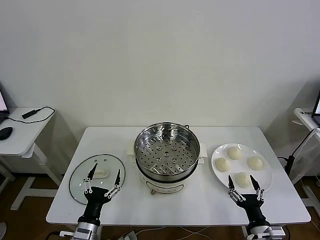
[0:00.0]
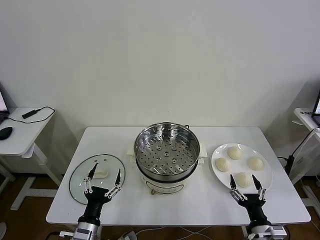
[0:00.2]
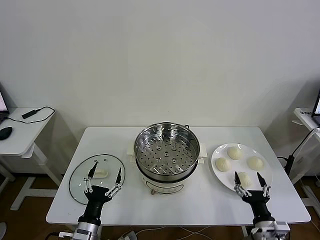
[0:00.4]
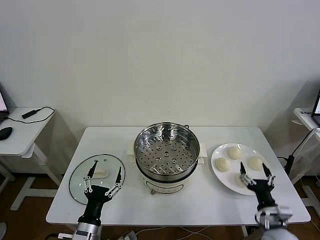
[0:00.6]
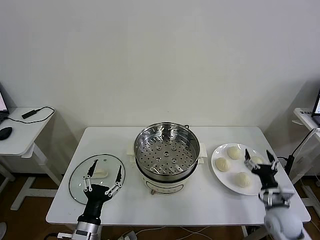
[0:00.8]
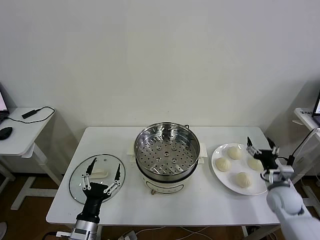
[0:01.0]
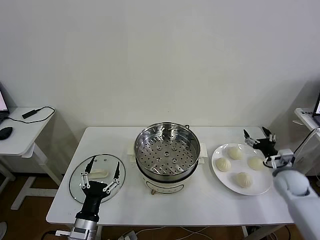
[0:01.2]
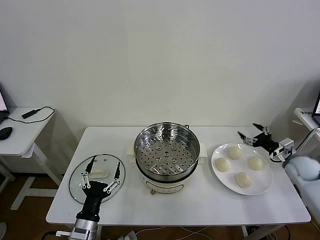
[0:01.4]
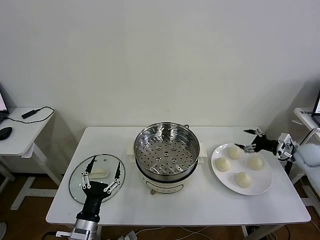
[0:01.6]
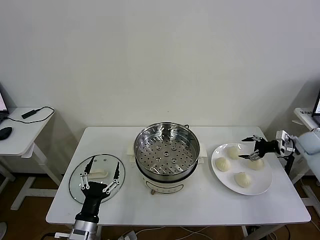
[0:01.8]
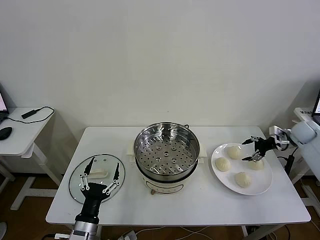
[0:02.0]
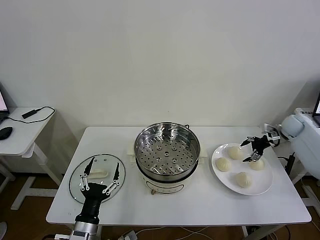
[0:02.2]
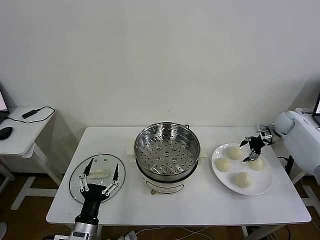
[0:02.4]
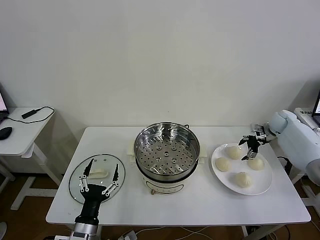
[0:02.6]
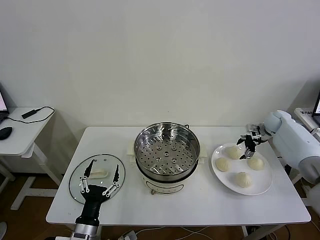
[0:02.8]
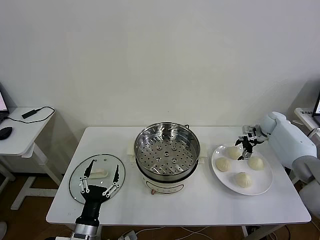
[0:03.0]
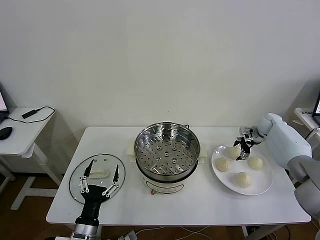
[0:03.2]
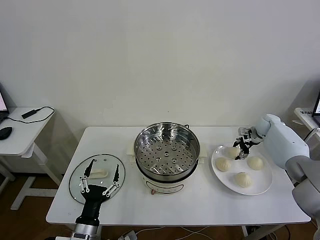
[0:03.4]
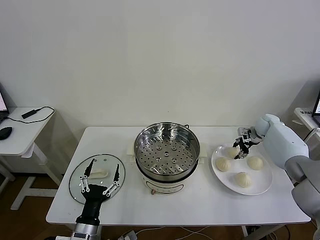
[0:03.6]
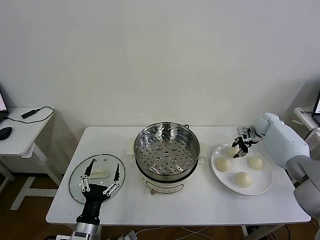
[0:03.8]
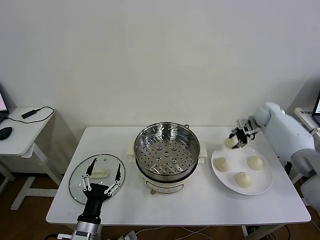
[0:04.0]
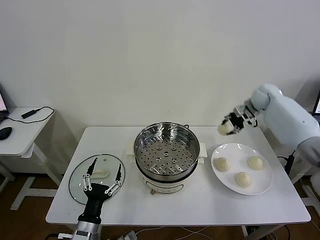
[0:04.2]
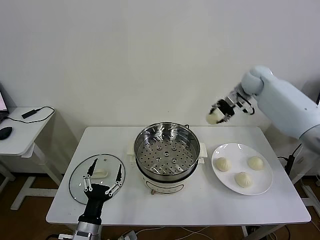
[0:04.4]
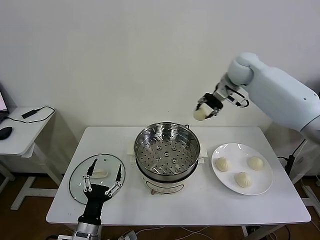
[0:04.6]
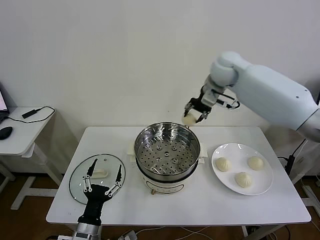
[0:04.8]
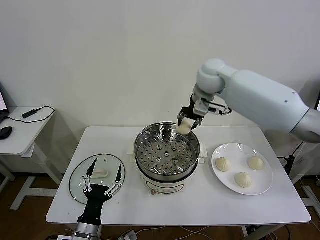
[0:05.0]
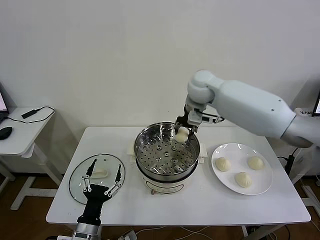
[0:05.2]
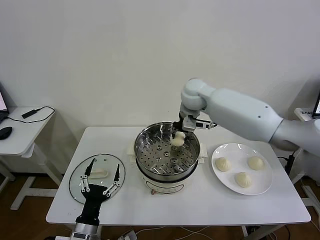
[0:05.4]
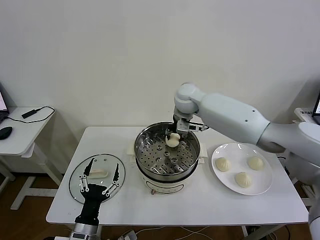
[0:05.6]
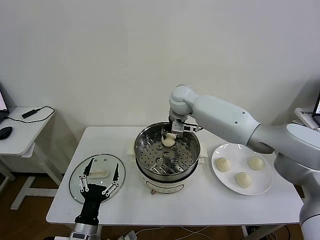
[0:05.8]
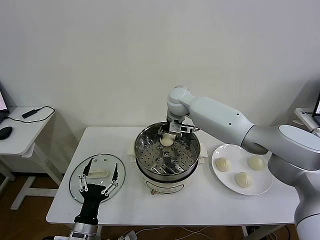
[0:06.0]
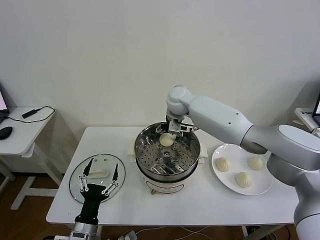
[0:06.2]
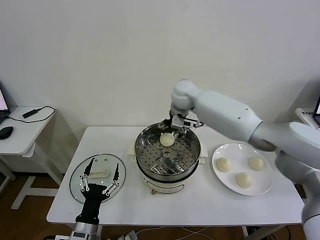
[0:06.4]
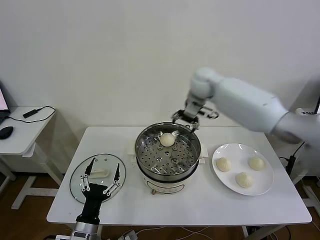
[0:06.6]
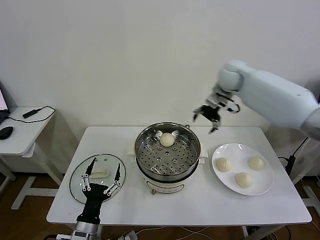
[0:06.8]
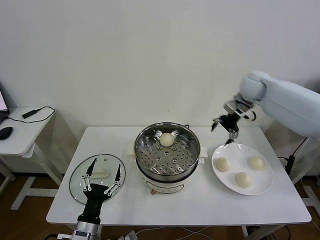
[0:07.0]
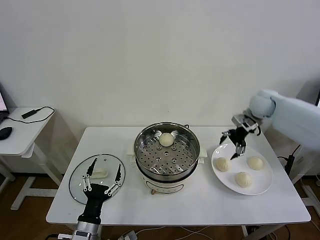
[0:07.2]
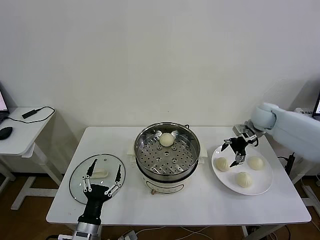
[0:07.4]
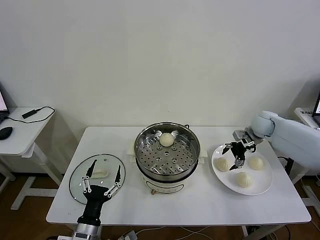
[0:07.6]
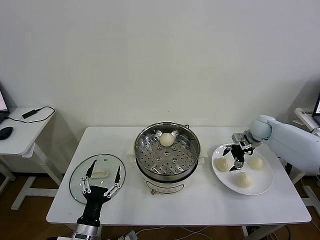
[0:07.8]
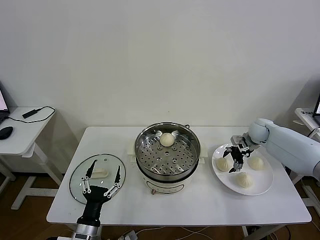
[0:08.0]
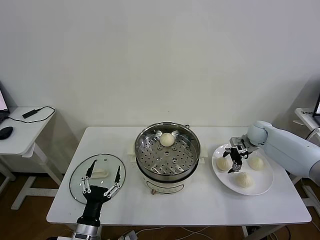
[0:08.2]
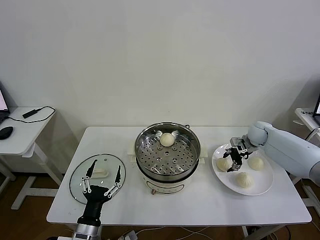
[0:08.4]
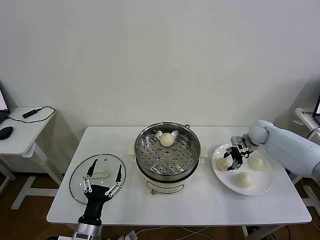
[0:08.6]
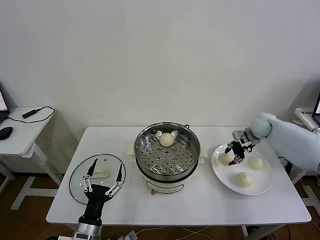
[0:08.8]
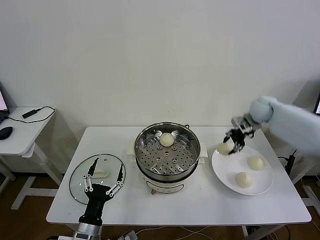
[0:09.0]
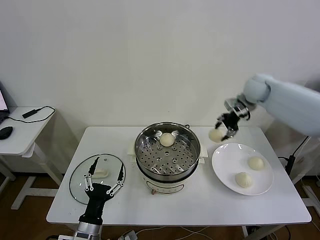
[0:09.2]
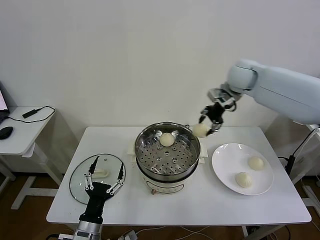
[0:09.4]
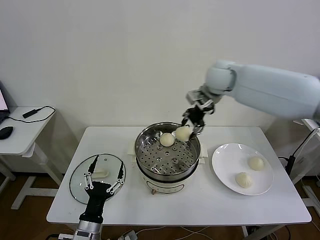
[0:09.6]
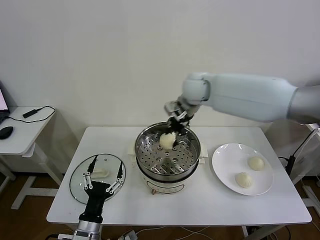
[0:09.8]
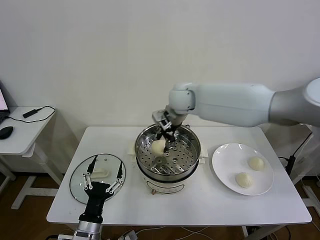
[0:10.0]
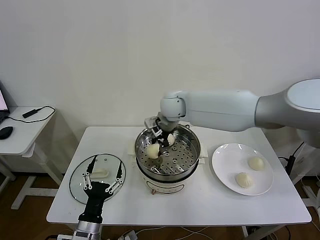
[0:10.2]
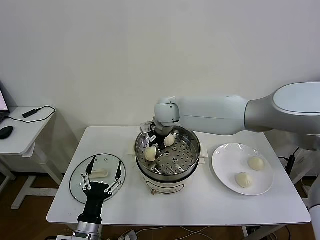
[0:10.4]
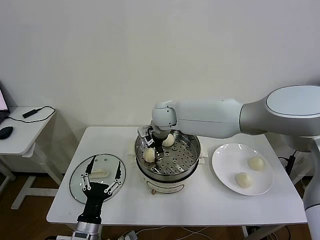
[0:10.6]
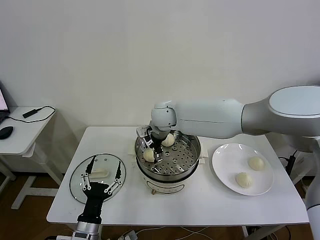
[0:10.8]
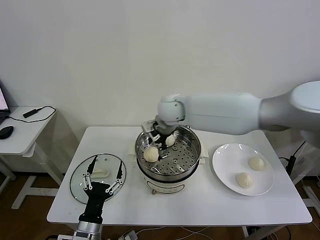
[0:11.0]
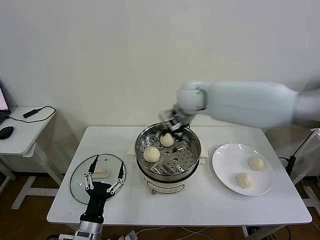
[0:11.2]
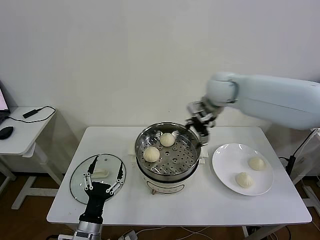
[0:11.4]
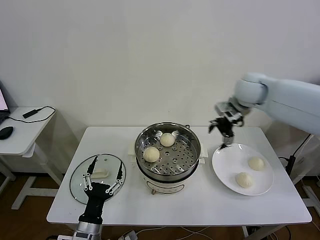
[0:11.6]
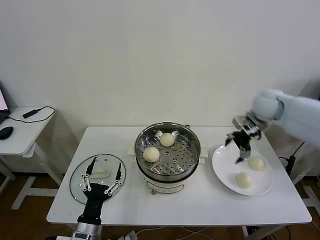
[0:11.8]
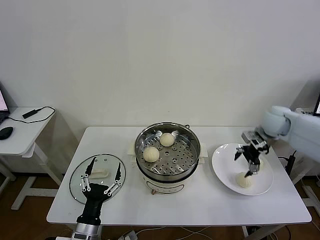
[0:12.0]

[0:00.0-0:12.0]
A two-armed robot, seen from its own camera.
Task of the whole recording: take steamed baozi put them in steamer then cover it.
Step, 0.0 to 3.6 s: Grasp the baozi in the plate with right gripper.
Step, 4.0 to 6.2 s: Place the baozi on the steamer with right gripper.
Step, 6.4 to 8.4 s: Grasp the baozi in the plate with right gripper.
Step, 8.8 to 10.6 s: Place the baozi on the steamer with right gripper.
1.6 to 3.0 s: The right gripper travels forward and to the left by approximately 15 cm.
3.0 to 4.4 s: The right gripper moves upward and to the left, roughly 30 cm, and closes up.
4.4 to 6.0 s: The right gripper travels to the left by about 25 cm, and opens up.
6.0 to 7.6 s: The right gripper heads to the right, covering roughly 35 cm, and opens.
7.6 to 9.0 s: The right gripper travels upward by approximately 10 cm, and closes up.
9.0 to 10.4 s: The right gripper heads to the left, covering about 35 cm.
10.4 to 12.0 s: The right gripper shifts some 35 cm to the right, and opens.

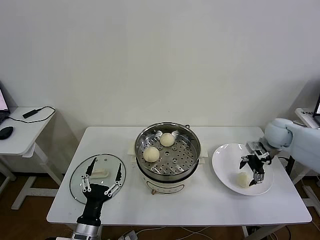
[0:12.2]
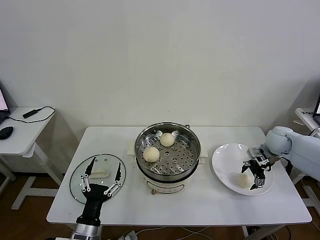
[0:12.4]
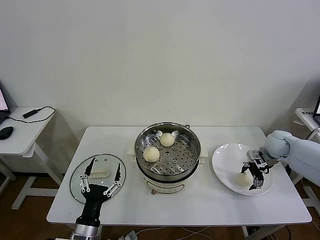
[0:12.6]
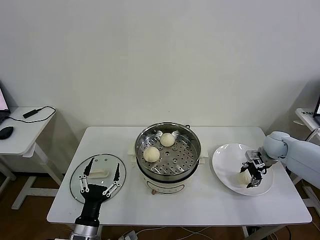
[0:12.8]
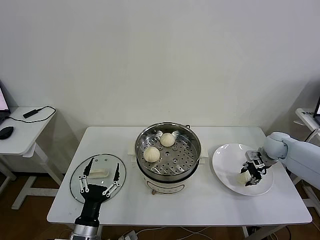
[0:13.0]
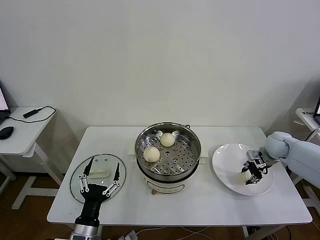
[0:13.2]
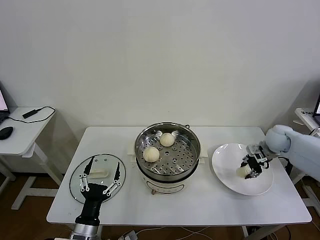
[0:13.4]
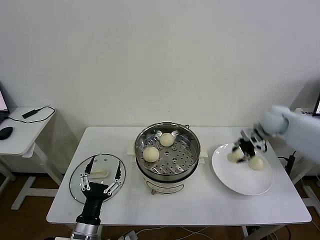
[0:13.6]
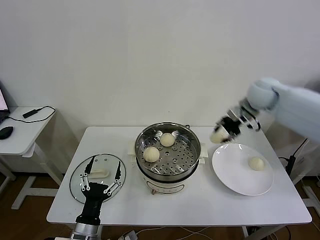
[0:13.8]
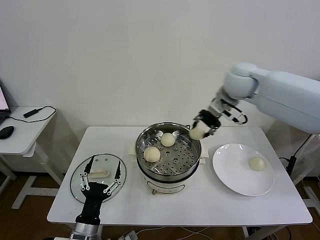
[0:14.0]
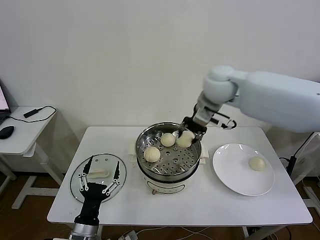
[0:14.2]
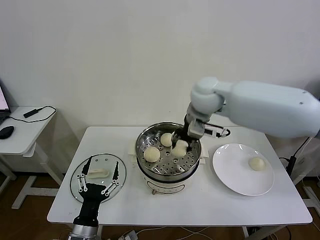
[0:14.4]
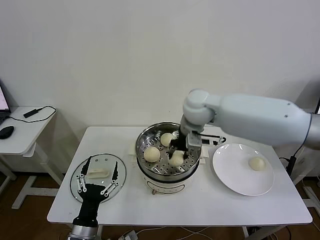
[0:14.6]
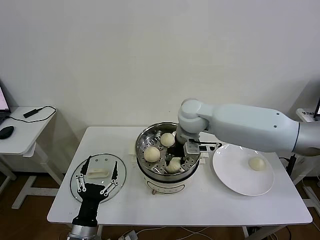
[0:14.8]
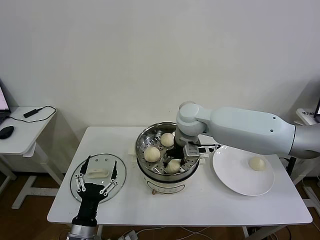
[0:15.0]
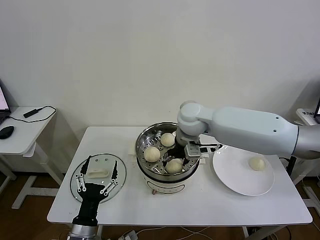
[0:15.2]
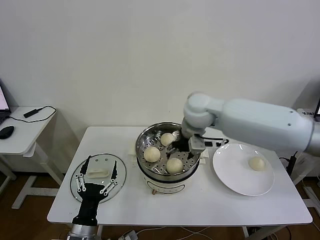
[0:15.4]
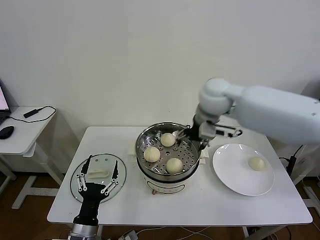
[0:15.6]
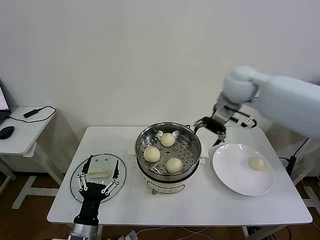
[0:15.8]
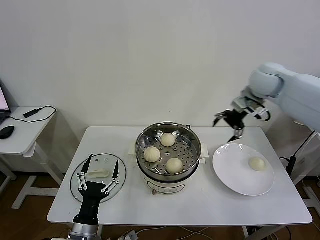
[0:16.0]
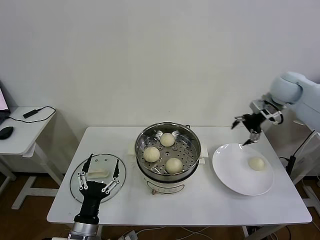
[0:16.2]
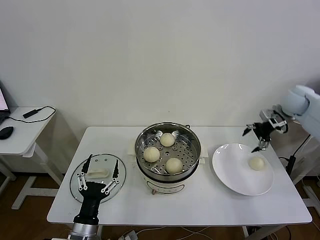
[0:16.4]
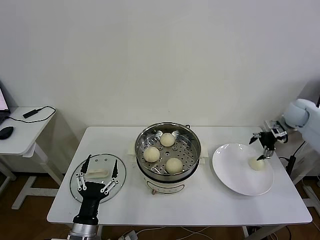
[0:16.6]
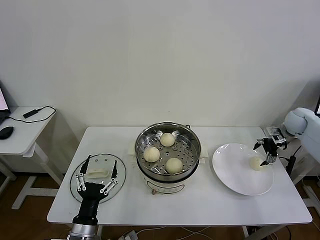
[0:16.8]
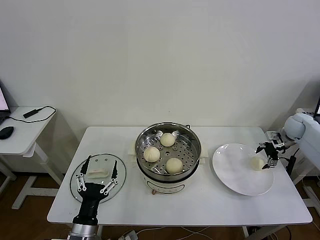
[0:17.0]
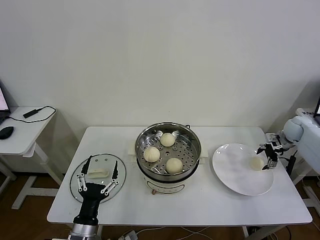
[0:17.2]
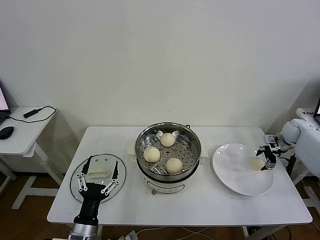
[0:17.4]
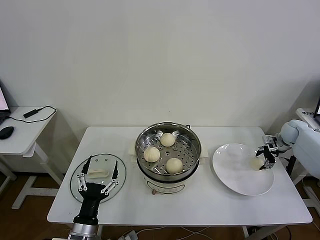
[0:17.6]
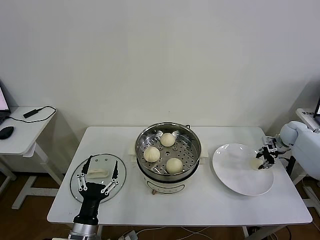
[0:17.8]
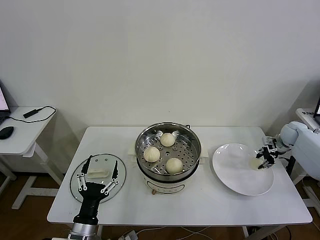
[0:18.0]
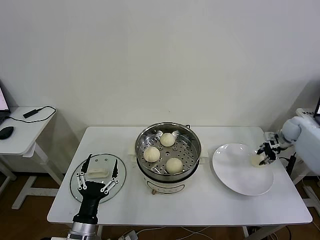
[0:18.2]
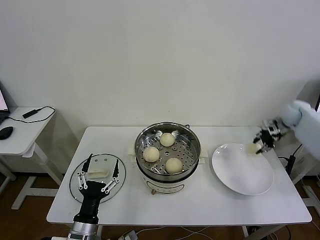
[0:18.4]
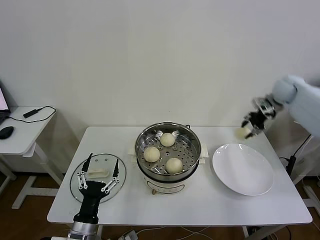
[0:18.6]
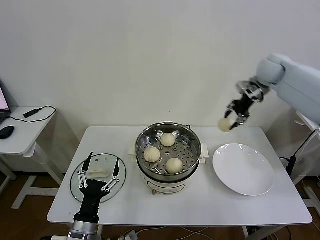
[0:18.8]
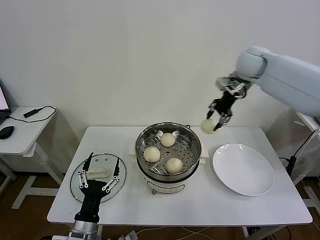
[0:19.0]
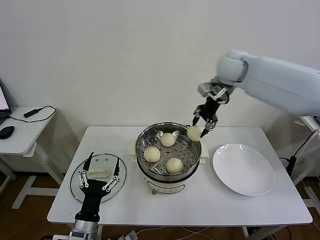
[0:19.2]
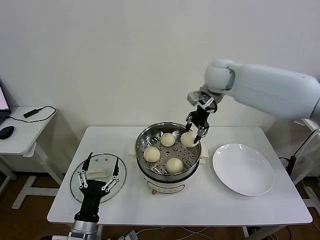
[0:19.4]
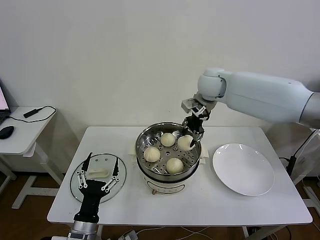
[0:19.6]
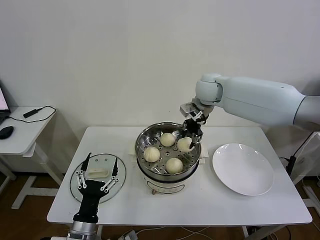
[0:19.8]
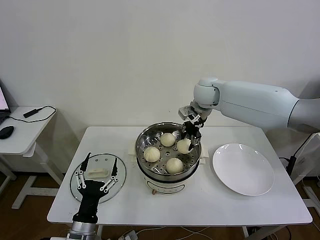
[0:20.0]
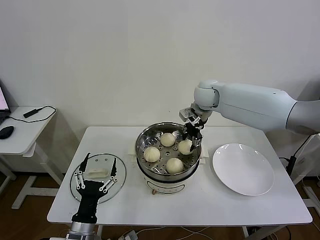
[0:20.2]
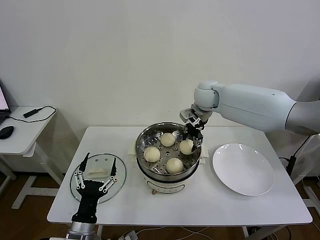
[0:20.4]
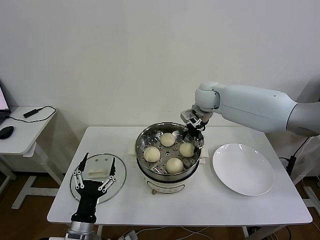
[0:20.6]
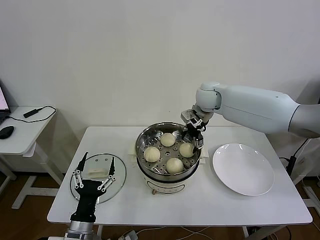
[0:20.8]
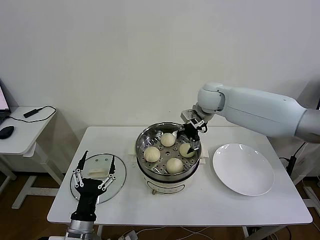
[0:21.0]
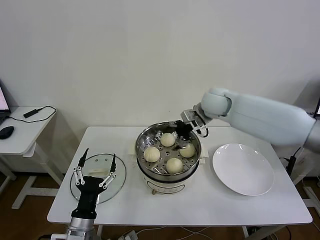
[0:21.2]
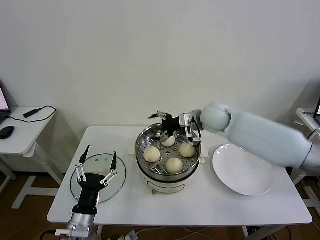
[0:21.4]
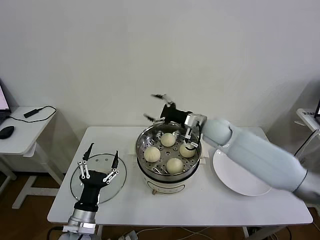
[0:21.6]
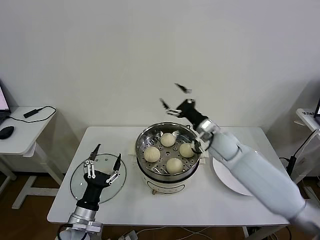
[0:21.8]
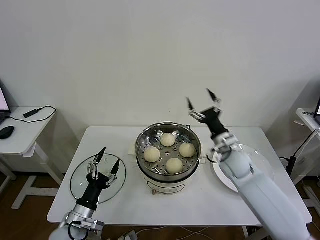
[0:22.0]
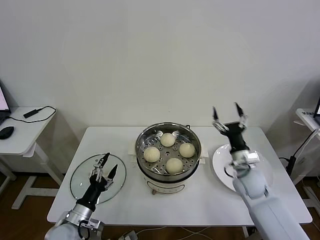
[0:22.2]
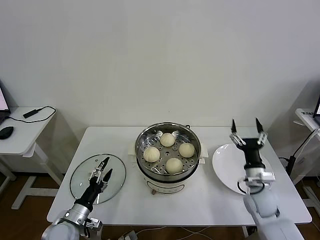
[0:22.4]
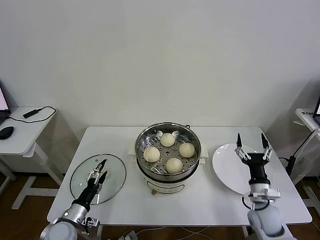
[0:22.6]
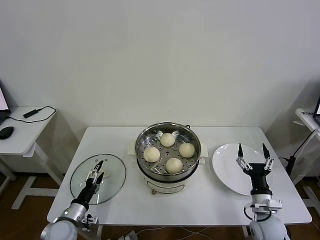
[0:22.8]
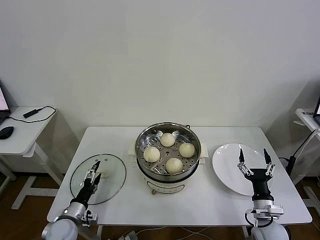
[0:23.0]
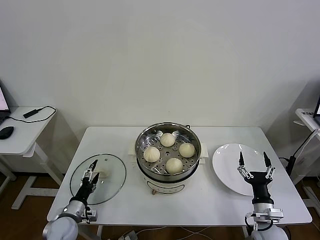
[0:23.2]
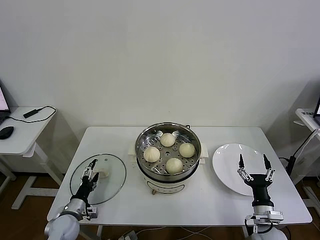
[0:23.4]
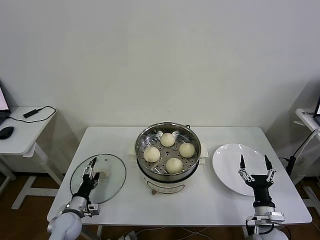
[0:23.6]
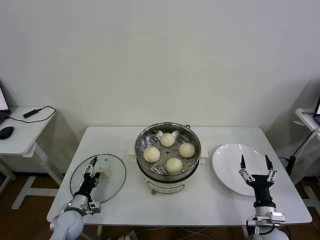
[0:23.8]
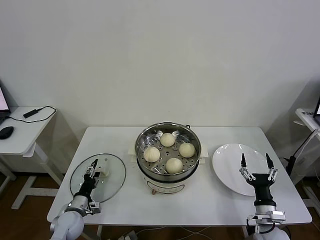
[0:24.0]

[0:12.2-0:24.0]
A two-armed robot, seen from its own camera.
Task of the whole recording: take steamed baozi put them in steamer then cover it.
Step, 13.4 to 15.2 s: Place the baozi on the steamer with right gripper.
Step, 15.4 to 18.0 s: Grasp the baozi in the plate with right gripper.
Step, 18.2 to 20.6 s: Place the baozi on the steamer with right gripper.
12.2 to 13.6 s: The right gripper goes roughly 5 cm upward, and closes up.
13.6 to 15.2 s: The right gripper travels to the left by roughly 30 cm, and opens.
15.2 to 16.6 s: The right gripper shifts roughly 40 cm to the right.
16.6 to 18.2 s: The right gripper goes about 10 cm downward, and closes up.
18.2 to 19.6 s: The right gripper moves to the left and upward, roughly 40 cm.
19.6 to 21.0 s: The right gripper opens its fingers.
21.0 to 22.6 s: The left gripper goes roughly 15 cm to the left, forward and downward; the right gripper moves backward, downward and to the right, approximately 40 cm.
22.6 to 24.0 s: The right gripper heads backward, covering approximately 5 cm; the left gripper is displaced downward and forward by approximately 5 cm.
